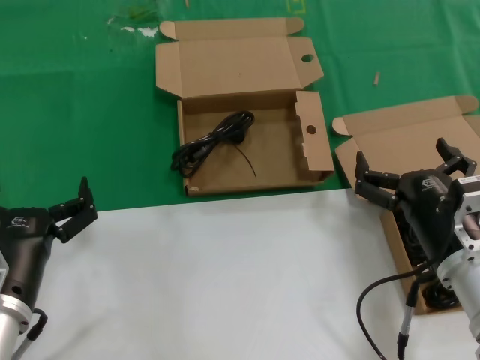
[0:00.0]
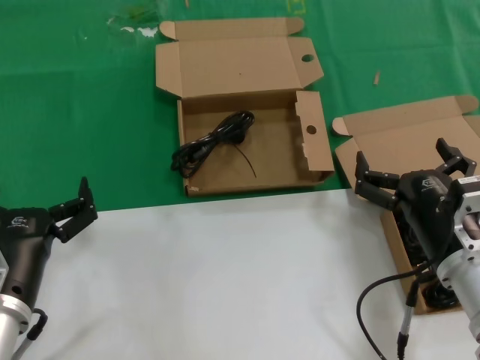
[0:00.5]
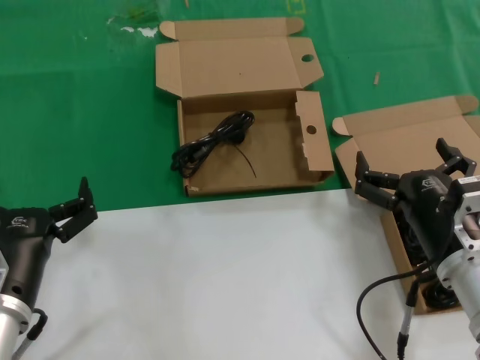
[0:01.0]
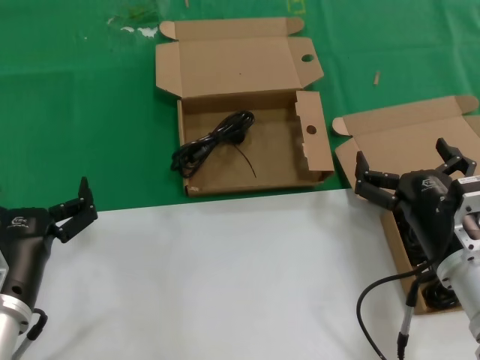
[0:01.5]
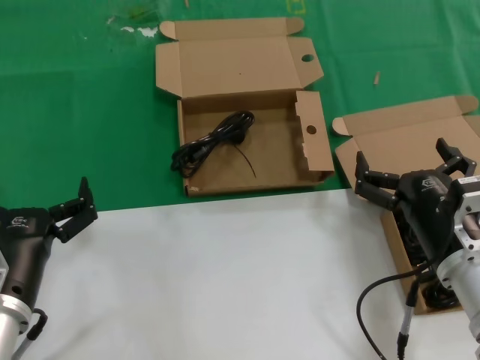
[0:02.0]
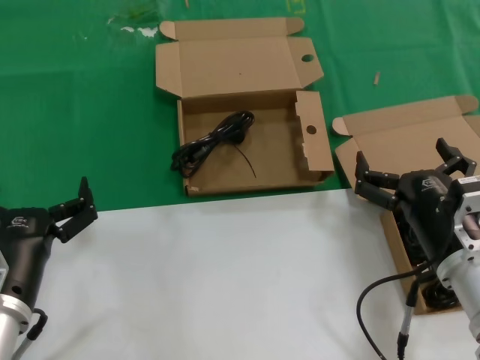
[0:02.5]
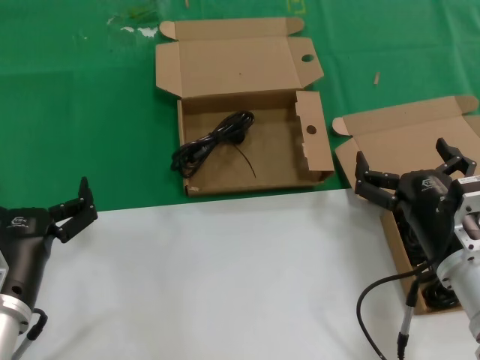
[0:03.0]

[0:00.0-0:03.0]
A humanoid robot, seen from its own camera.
Task of the whole recording: take the parts from the box containing them and put them into an empty box.
0:00.0 to 0:03.0: Both hands stay put.
